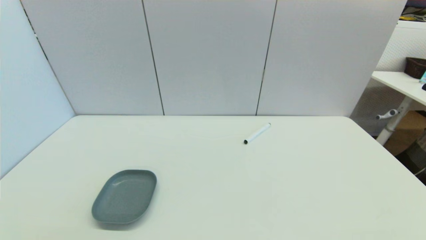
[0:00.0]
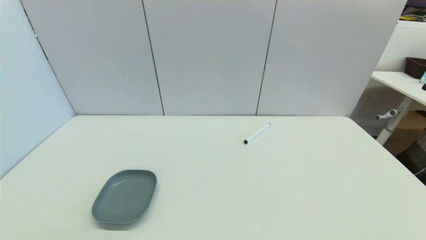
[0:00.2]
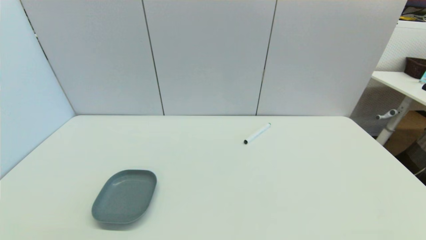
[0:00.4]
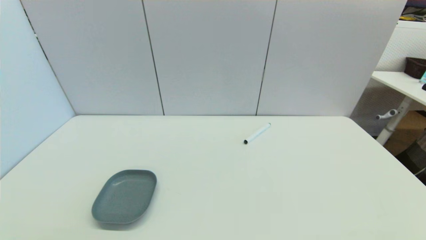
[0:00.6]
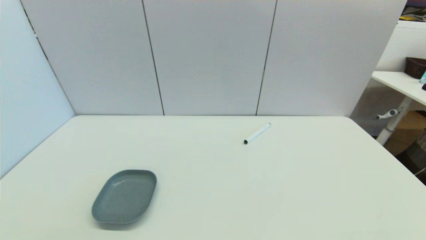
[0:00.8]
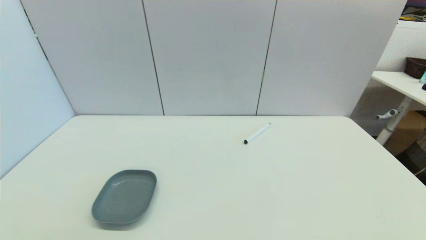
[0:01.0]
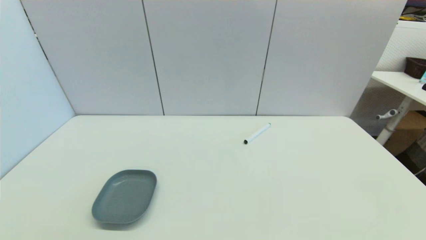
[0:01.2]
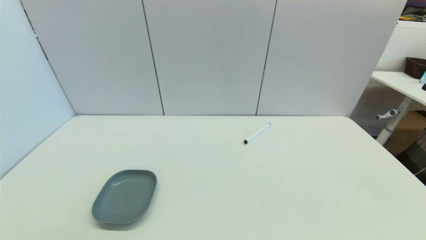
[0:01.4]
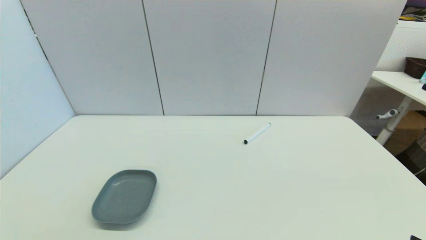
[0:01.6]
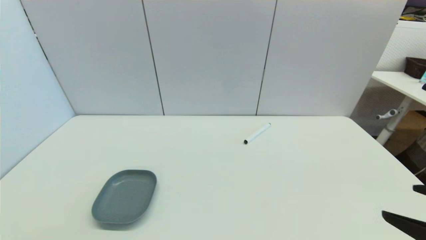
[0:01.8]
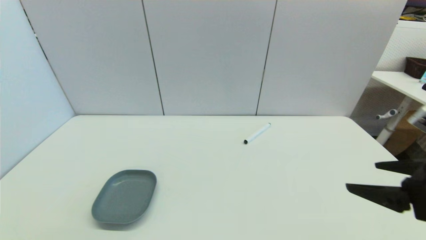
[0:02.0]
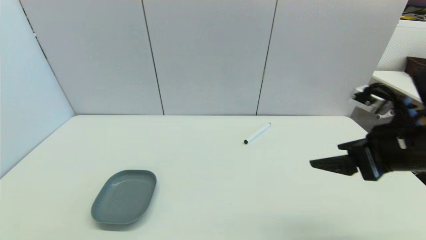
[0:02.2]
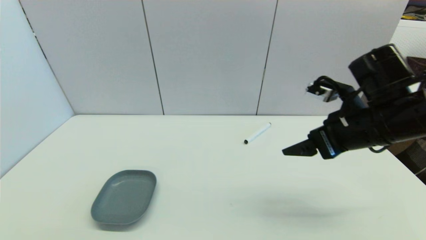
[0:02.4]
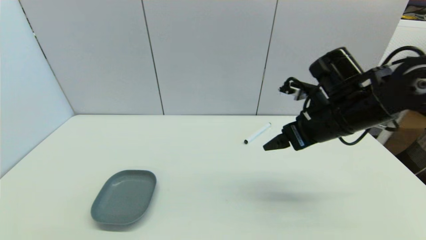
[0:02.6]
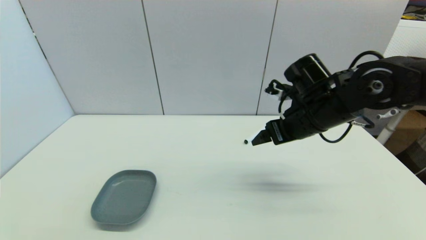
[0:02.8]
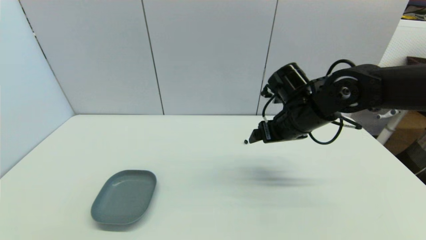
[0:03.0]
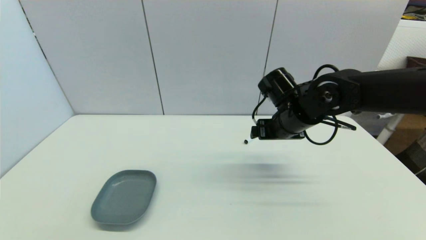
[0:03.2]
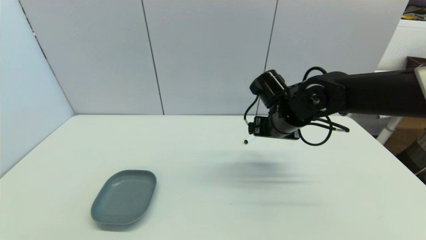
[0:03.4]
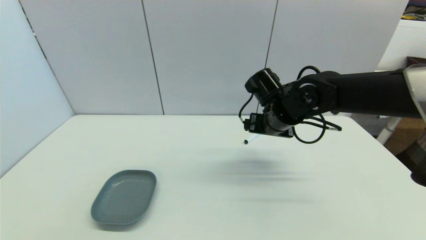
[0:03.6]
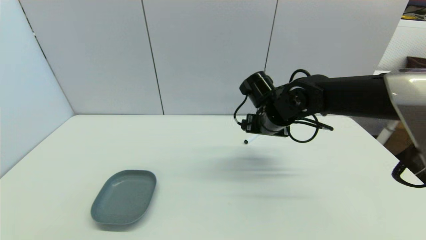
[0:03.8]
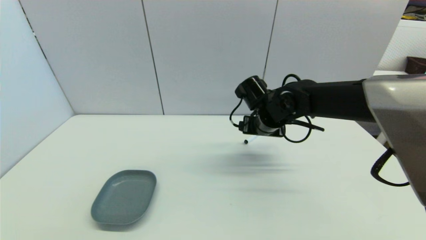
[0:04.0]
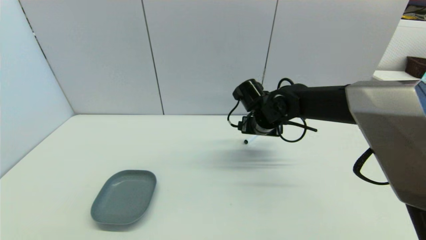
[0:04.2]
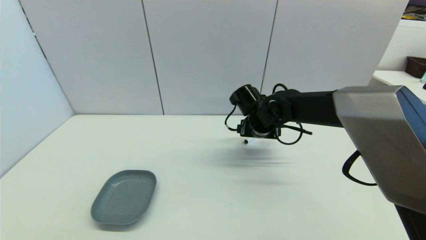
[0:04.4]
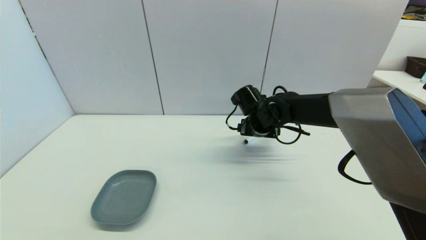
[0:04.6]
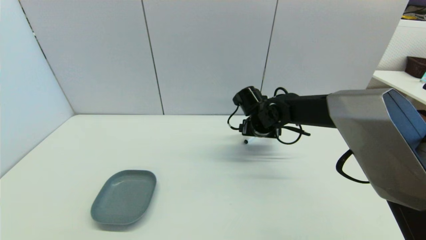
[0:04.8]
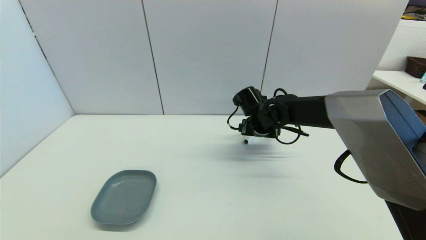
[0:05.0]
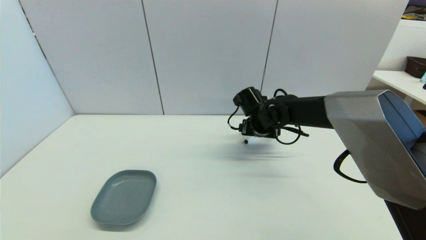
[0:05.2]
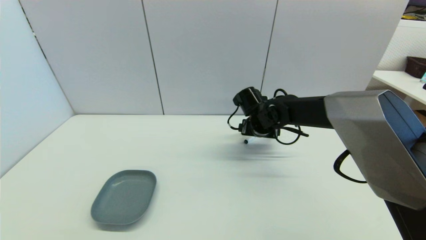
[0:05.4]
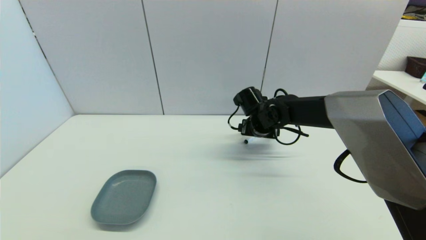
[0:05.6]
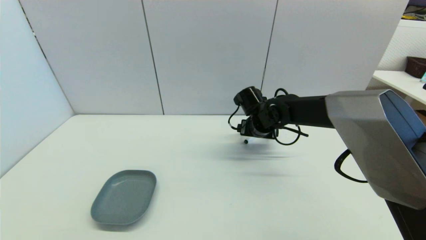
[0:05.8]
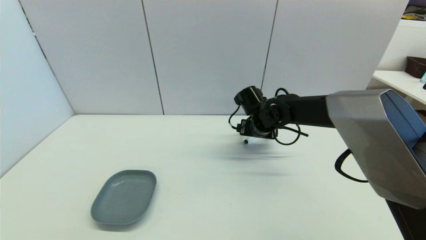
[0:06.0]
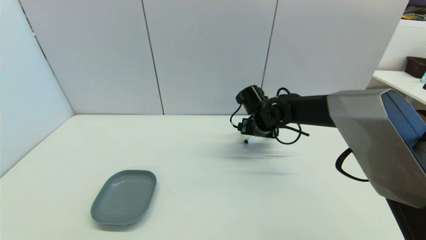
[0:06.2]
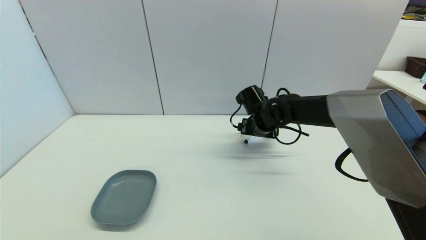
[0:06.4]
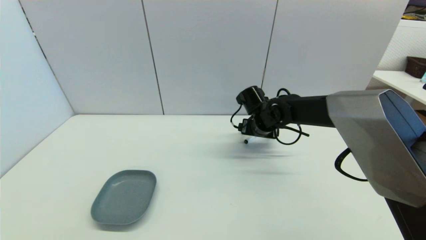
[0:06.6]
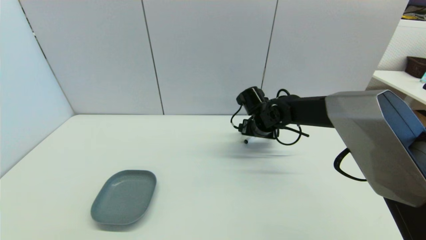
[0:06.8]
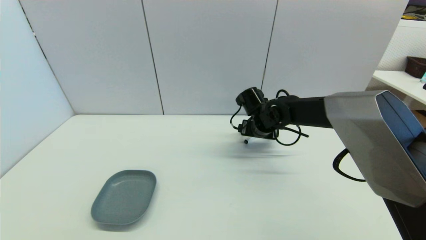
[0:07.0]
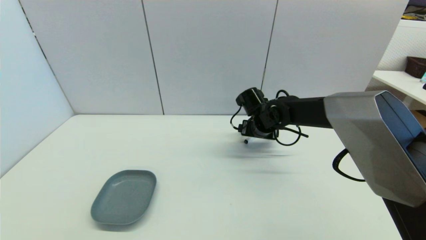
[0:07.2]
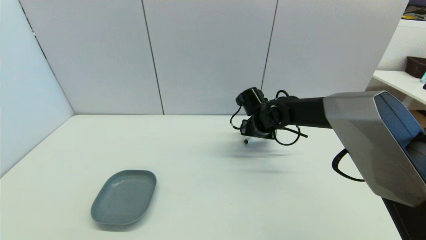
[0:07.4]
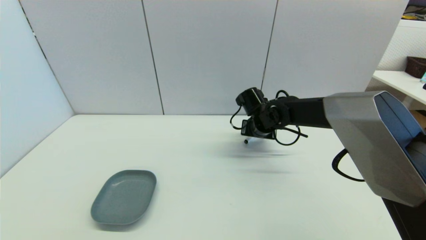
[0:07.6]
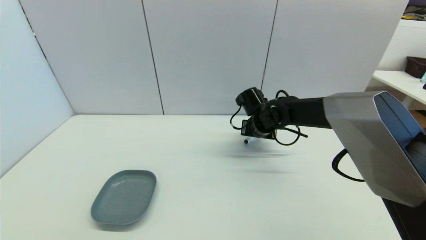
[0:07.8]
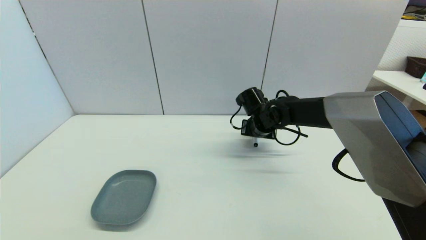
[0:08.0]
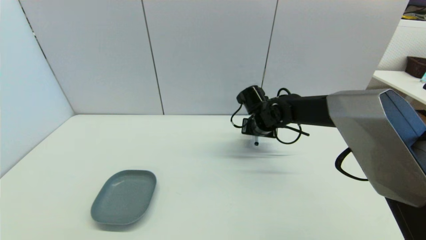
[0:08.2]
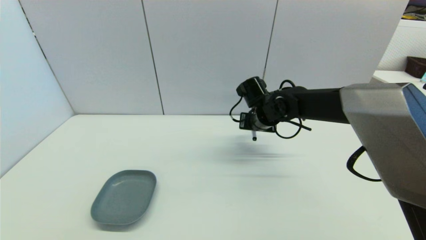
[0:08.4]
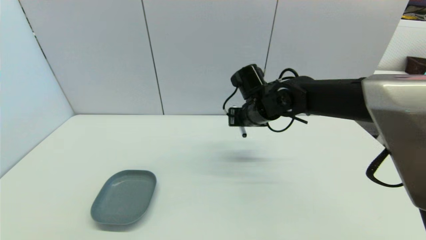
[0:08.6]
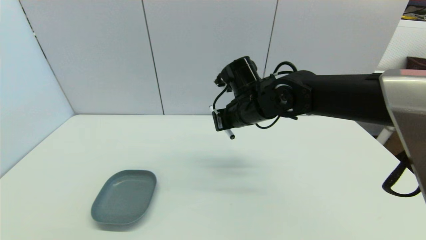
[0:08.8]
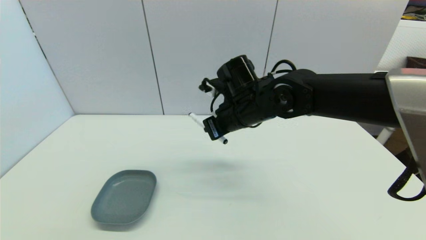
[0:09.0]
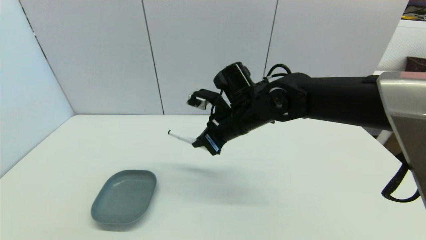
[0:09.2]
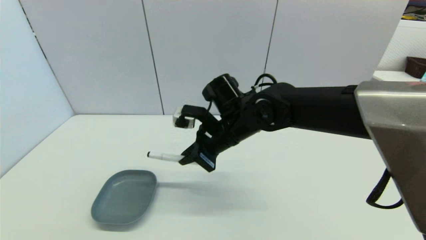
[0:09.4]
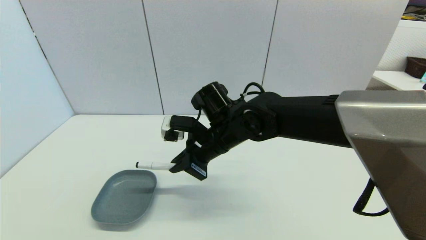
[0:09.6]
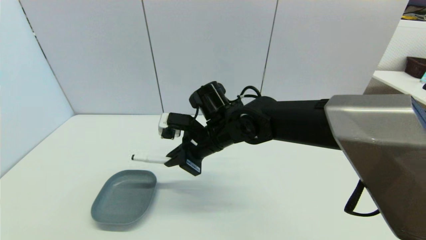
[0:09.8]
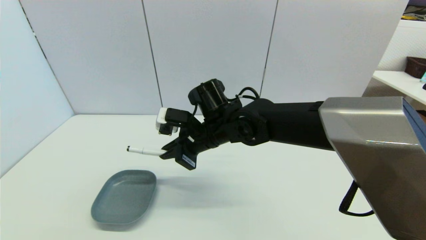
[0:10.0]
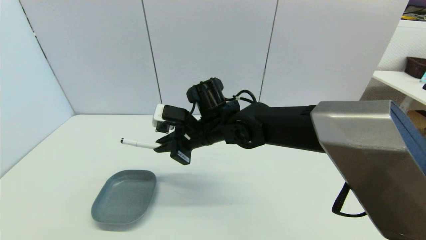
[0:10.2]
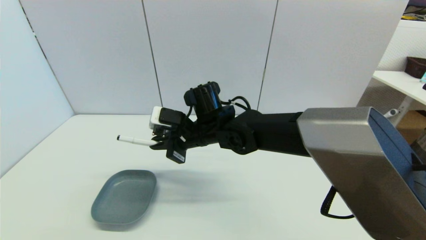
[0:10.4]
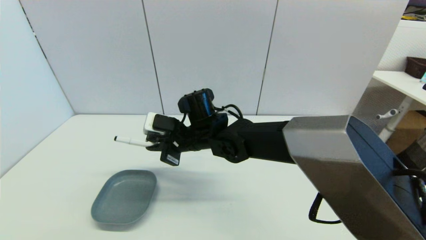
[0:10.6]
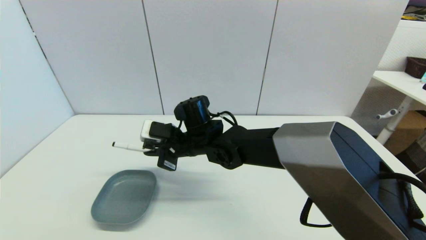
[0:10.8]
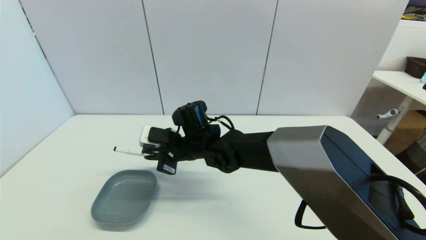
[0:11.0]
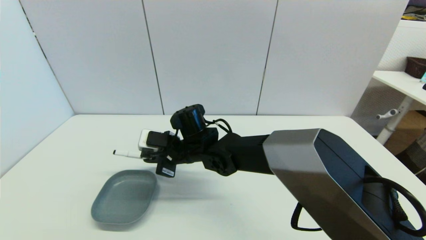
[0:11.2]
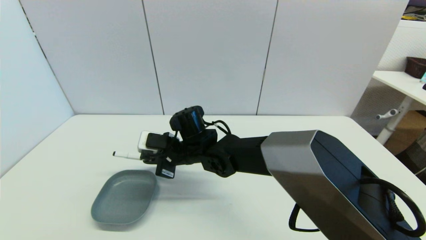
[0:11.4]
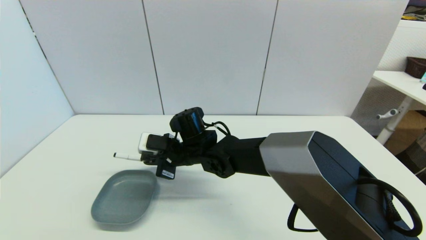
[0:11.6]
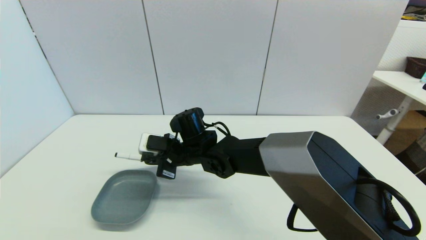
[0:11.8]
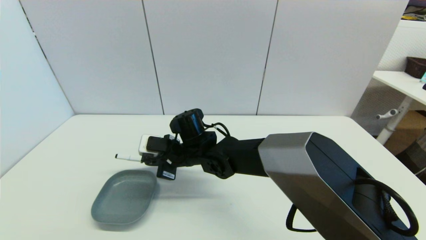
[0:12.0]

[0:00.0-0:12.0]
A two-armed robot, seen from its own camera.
Task of the whole recording: put the black marker in the designated position.
Step, 0:01.8 to 0:08.0: Grasp the Marker pen with right gripper.
0:01.6 to 0:03.0: The right gripper goes approximately 35 cm forward and to the left.
0:03.0 to 0:04.4: The right gripper travels forward, downward and to the left by roughly 10 cm.
0:04.4 to 0:06.0: The grippers move only a little.
0:06.0 to 0:07.6: The right gripper closes its fingers.
0:07.6 to 0:09.0: The right gripper goes some 15 cm upward, backward and to the left, and closes up.
0:09.0 to 0:10.4: The right gripper travels to the left by approximately 10 cm.
0:10.4 to 0:12.0: The right gripper goes approximately 5 cm downward.

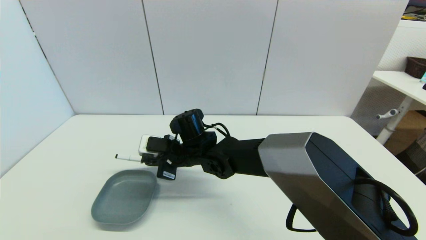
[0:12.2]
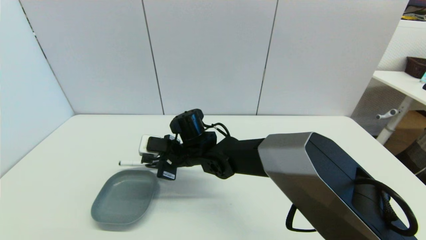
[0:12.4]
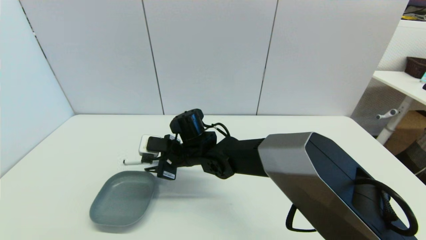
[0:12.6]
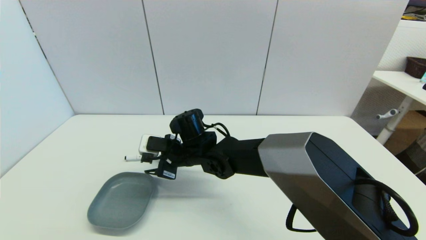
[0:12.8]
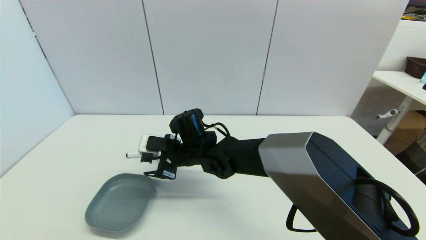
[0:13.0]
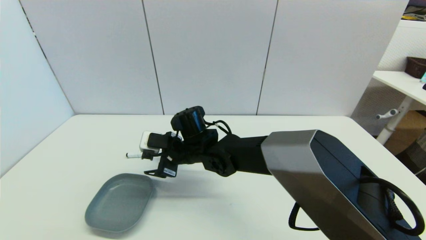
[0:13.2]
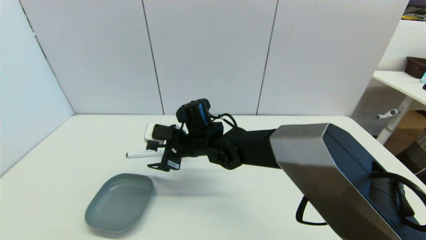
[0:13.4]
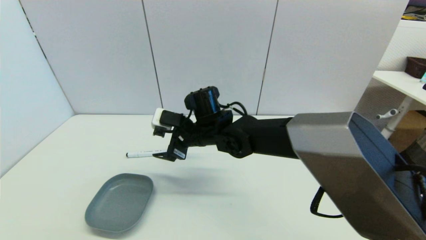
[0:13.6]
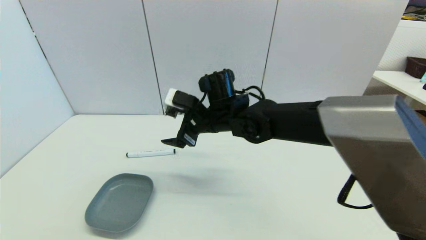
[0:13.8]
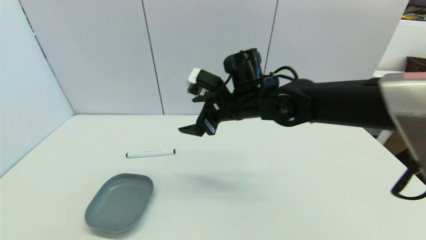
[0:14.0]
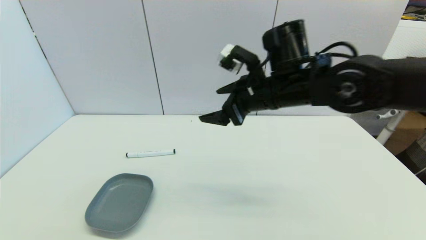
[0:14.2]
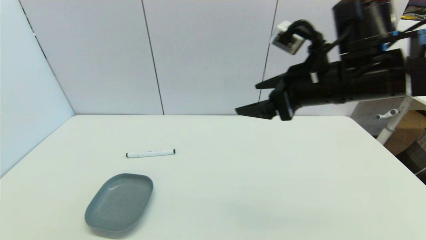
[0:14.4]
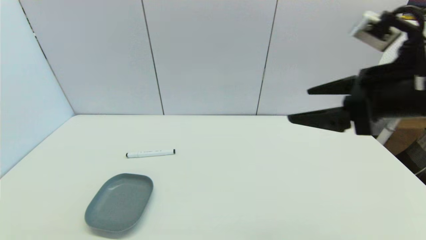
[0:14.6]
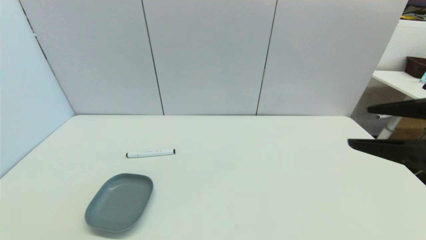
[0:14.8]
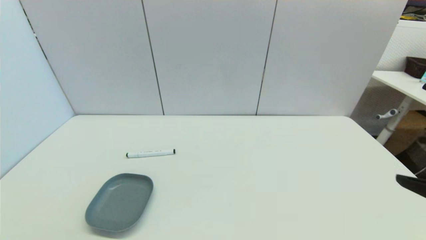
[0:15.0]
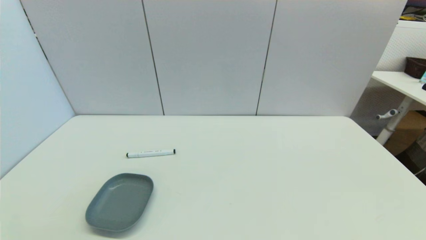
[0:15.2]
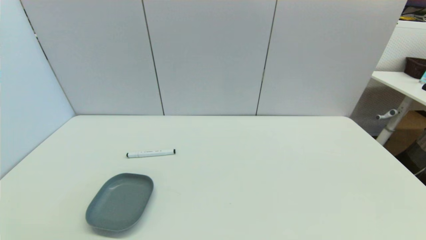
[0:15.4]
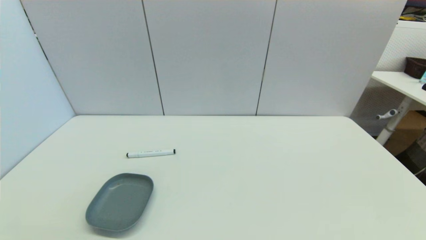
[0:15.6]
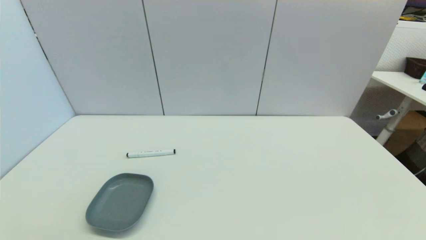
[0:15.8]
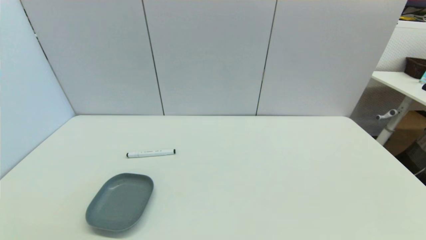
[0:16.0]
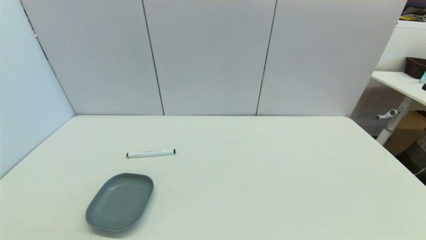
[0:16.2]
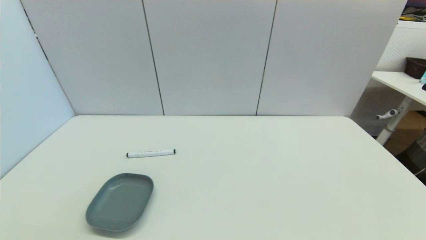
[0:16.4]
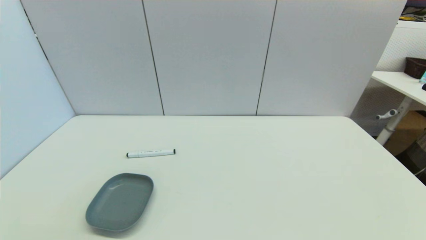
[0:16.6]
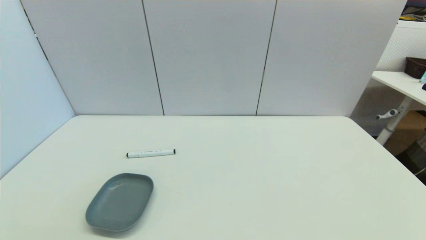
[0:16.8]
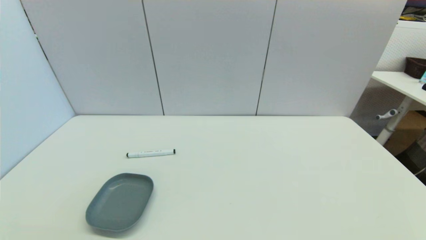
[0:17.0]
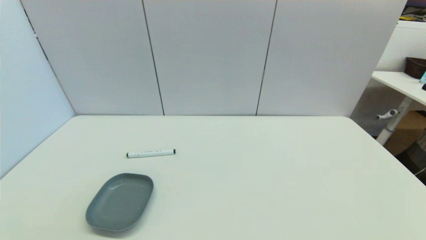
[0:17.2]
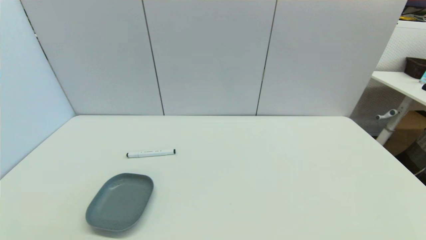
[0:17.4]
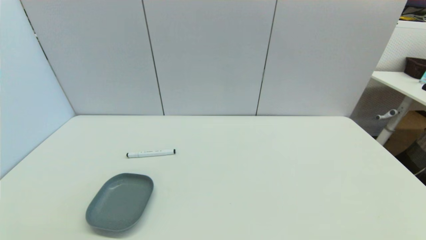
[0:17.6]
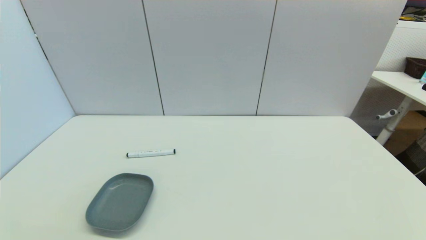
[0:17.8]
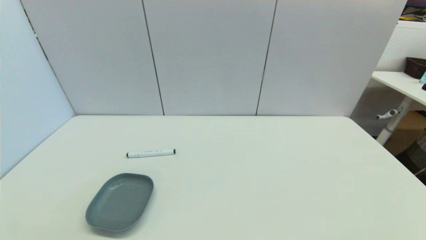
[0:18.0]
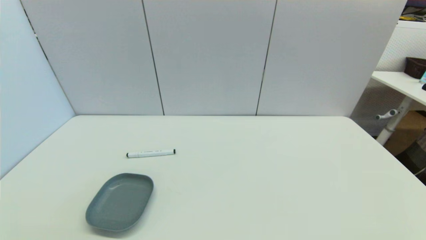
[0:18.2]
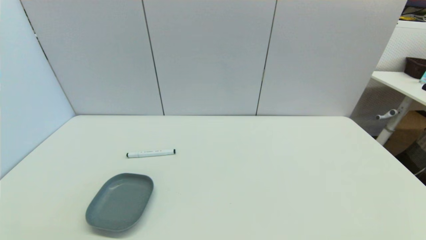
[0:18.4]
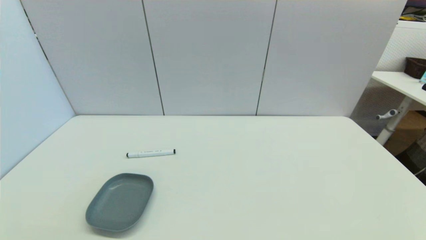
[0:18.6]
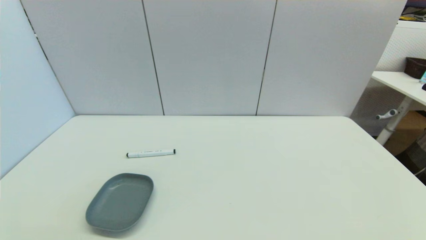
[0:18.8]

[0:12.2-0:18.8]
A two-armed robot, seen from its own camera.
Task of the whole recording: put the black marker in the designated position.
0:12.2 to 0:13.8: The right gripper is displaced upward and to the right by approximately 10 cm, and opens its fingers.
0:13.8 to 0:15.4: The right gripper shifts about 50 cm backward and to the right.
0:17.2 to 0:18.8: The two grippers keep their place.
